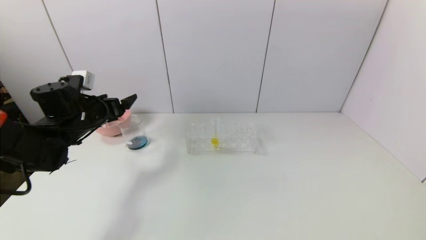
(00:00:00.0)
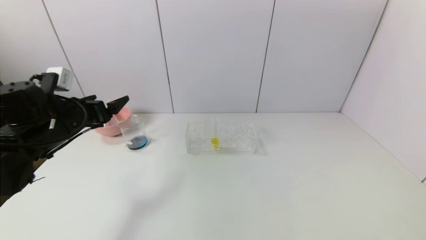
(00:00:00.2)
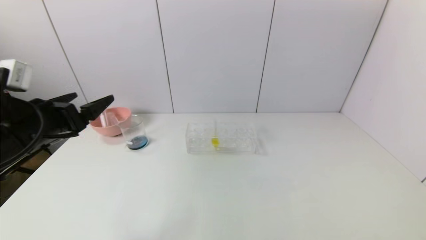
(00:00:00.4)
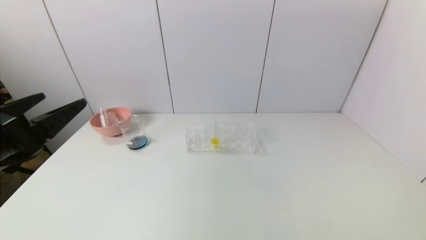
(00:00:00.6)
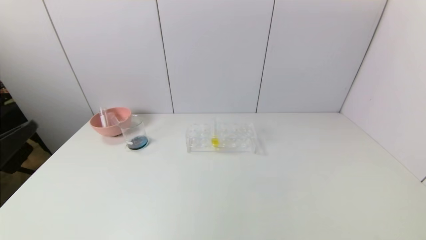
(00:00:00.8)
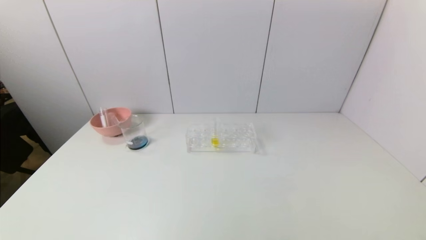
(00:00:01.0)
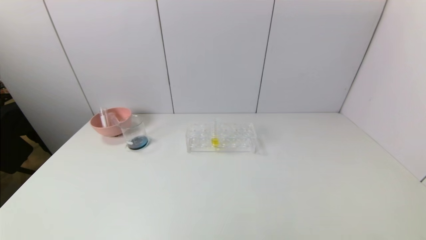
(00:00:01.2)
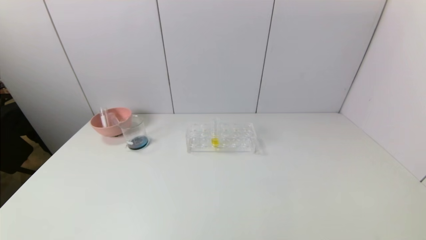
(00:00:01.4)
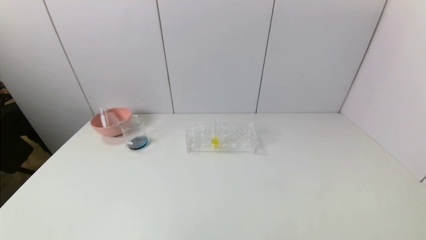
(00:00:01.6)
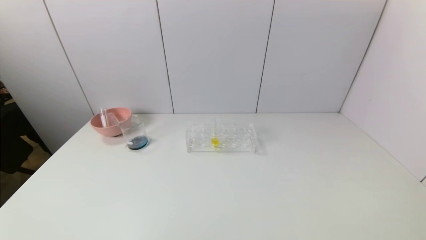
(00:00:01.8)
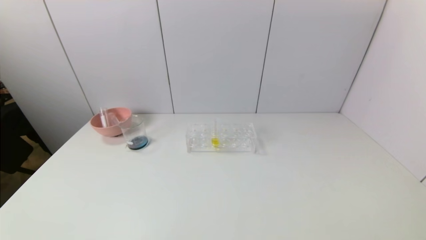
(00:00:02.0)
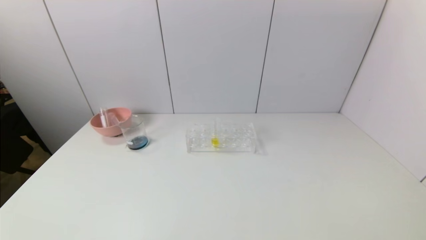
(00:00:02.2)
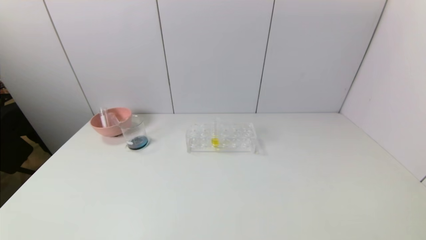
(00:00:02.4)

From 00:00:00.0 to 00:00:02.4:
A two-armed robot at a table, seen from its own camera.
Task of the whole recording: pick up the test tube with red pigment and the test tube with blue pigment by grippers and pour them into the container.
From 00:00:00.0 to 00:00:01.2: The left gripper travels backward by approximately 40 cm.
